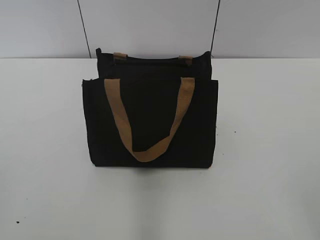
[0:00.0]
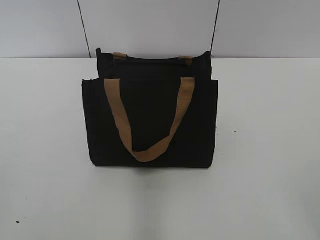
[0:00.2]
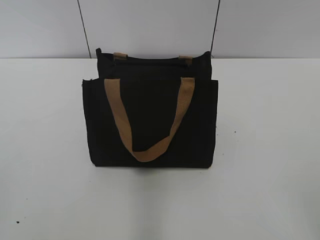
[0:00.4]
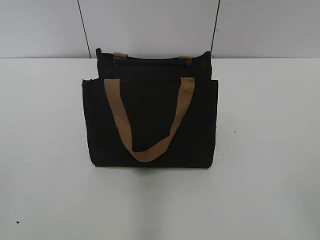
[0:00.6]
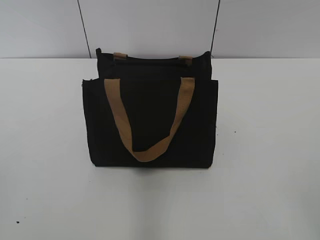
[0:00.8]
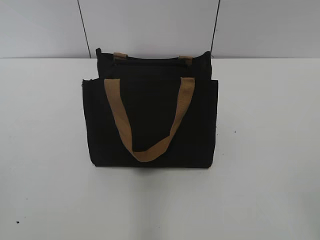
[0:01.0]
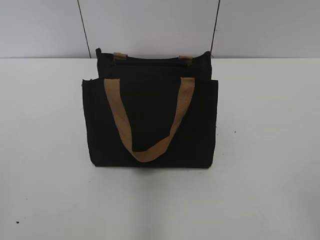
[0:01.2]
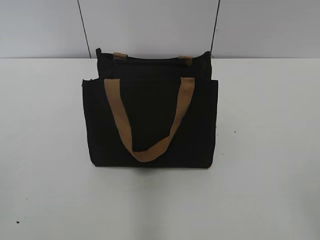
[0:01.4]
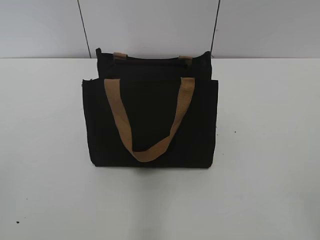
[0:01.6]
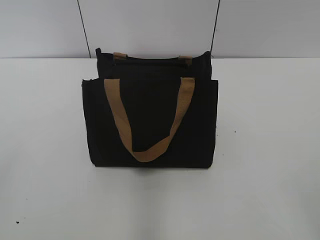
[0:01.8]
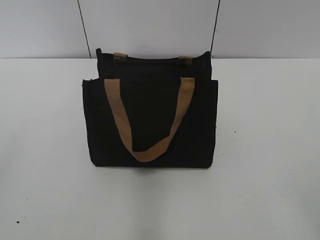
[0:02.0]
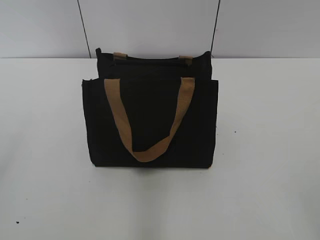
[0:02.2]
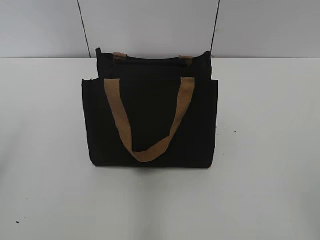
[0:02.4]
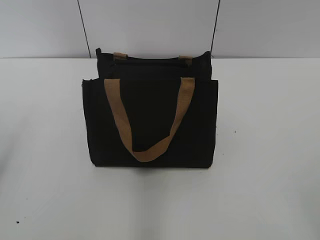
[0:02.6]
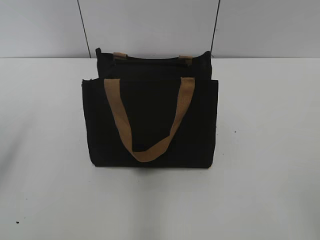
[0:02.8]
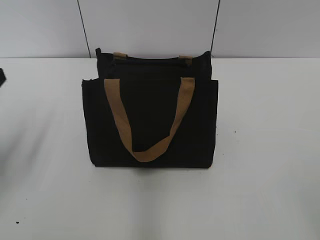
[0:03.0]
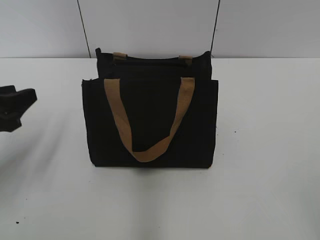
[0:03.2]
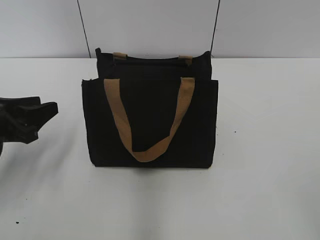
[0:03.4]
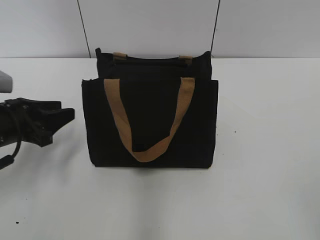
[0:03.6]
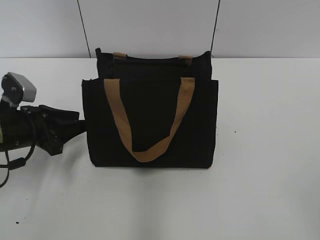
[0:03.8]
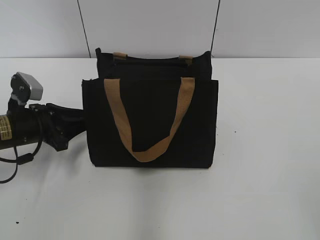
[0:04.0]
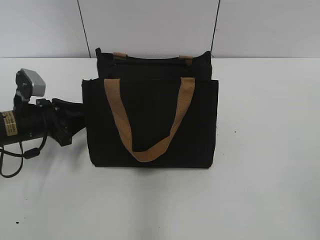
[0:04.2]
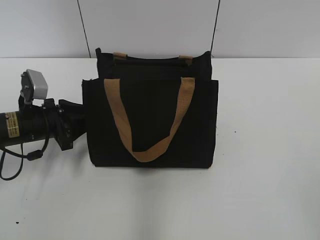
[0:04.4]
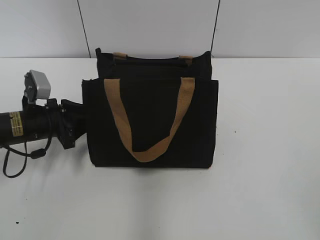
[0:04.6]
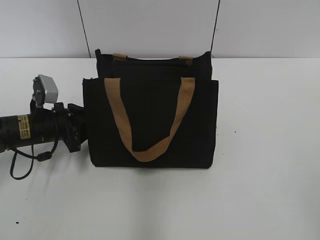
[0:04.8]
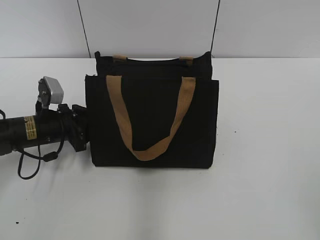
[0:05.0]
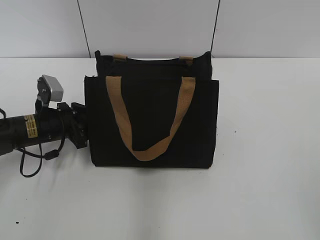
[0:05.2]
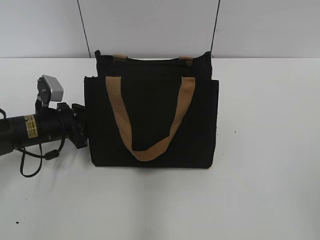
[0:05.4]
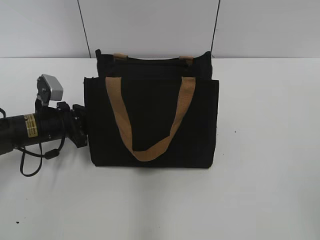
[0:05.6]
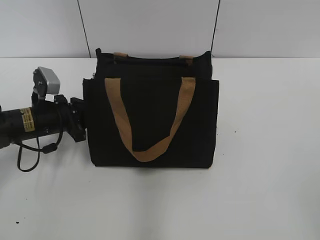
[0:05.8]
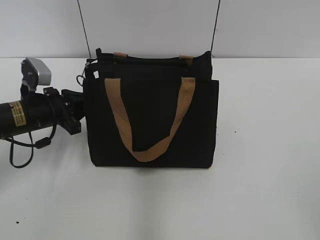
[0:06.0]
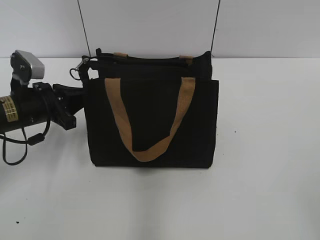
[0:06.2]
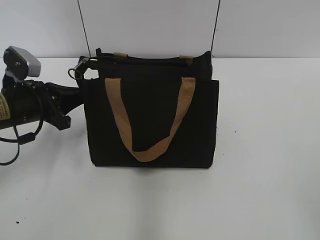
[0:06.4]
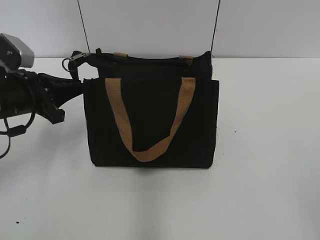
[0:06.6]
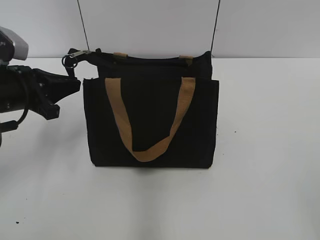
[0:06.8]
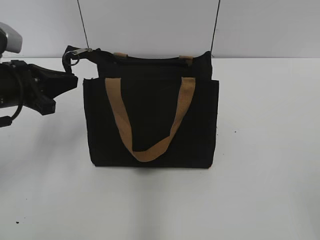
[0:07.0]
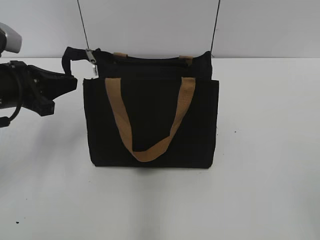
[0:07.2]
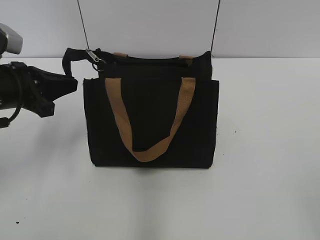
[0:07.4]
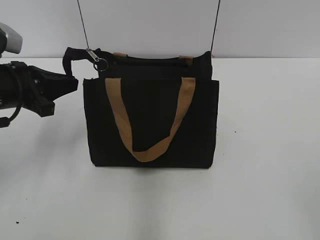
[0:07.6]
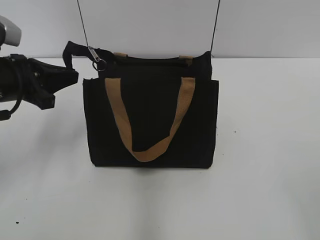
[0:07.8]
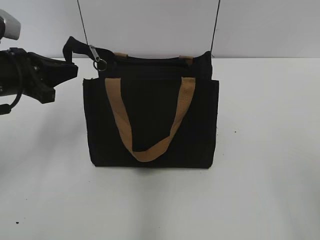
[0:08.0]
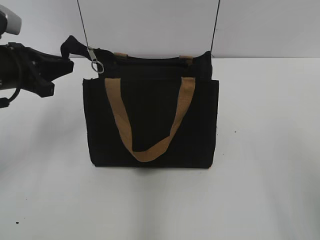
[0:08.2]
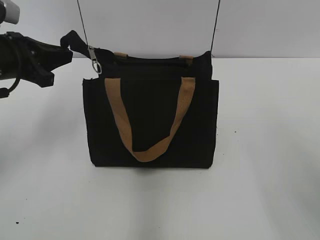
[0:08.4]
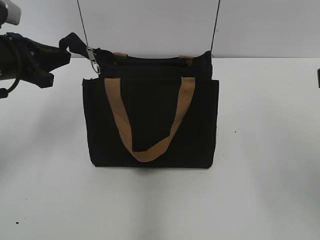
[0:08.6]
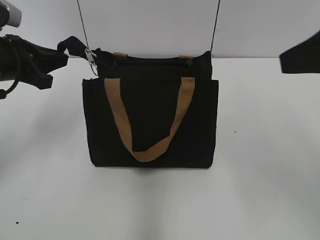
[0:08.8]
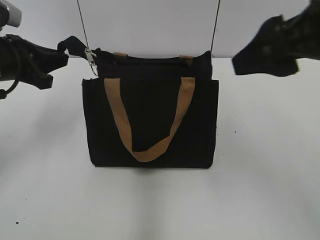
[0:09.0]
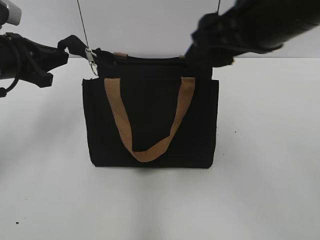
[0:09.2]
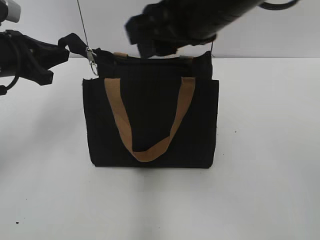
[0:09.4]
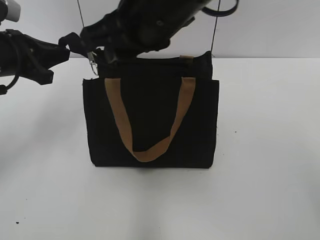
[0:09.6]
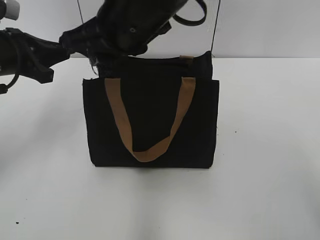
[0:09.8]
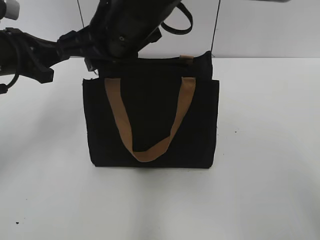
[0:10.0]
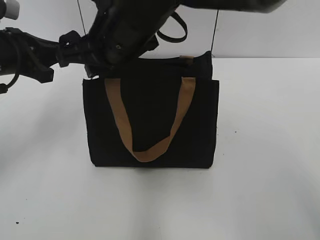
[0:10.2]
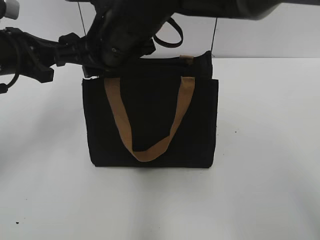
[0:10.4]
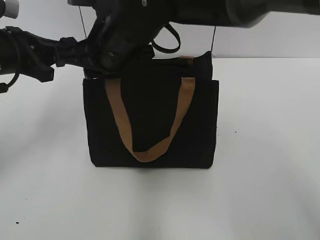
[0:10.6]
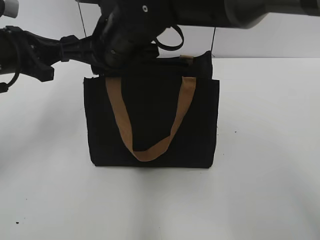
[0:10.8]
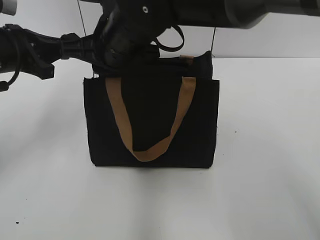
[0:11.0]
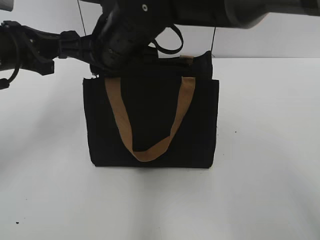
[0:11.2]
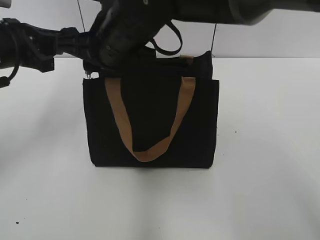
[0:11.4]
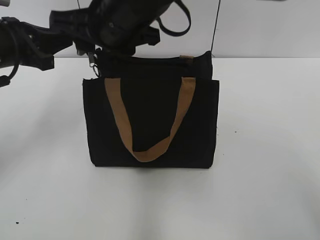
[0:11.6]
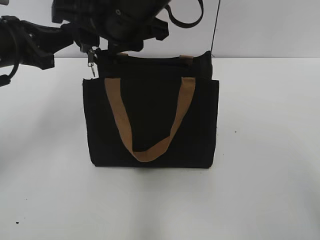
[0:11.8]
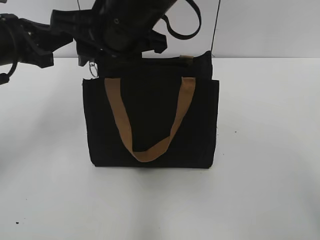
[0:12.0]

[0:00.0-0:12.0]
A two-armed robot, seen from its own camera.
0:01.6 to 0:03.0: The left gripper is displaced forward and downward by roughly 25 cm.
0:03.0 to 0:04.4: The left gripper moves downward, forward and to the right, roughly 15 cm.
0:04.4 to 0:06.0: The left gripper closes up.
0:06.0 to 0:07.6: The left gripper shifts about 10 cm upward.
0:07.6 to 0:09.0: The right gripper heads forward and to the left, covering roughly 25 cm.
0:09.0 to 0:10.4: The right gripper heads to the left and forward, covering roughly 20 cm, and closes.
0:10.4 to 0:12.0: The grippers move only a little.

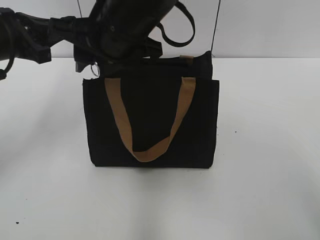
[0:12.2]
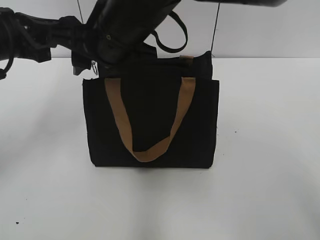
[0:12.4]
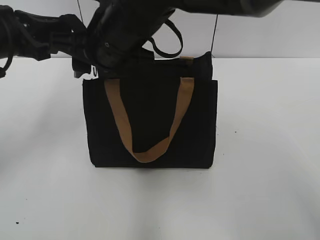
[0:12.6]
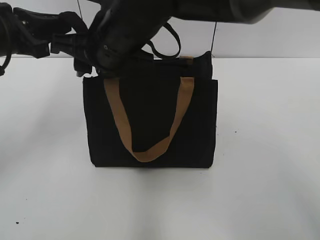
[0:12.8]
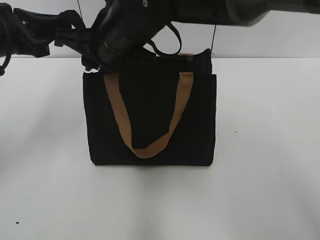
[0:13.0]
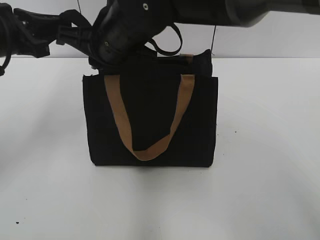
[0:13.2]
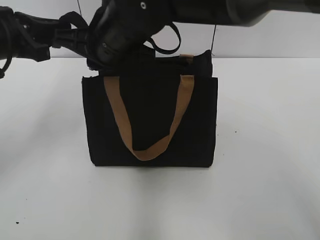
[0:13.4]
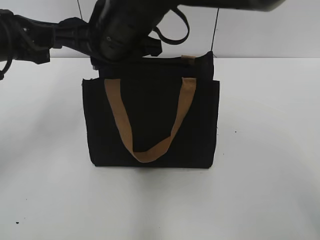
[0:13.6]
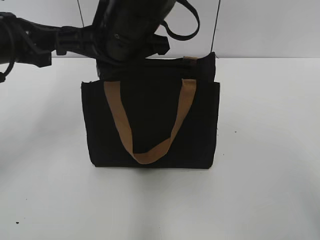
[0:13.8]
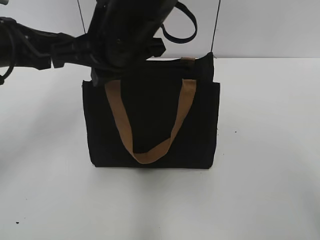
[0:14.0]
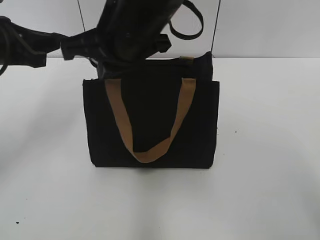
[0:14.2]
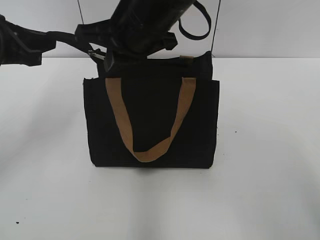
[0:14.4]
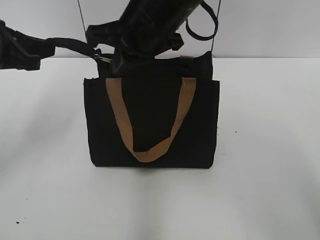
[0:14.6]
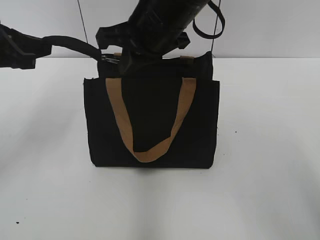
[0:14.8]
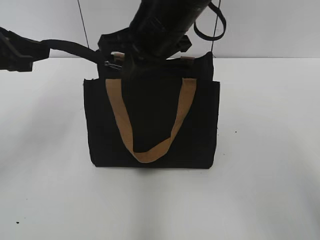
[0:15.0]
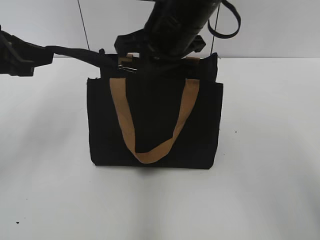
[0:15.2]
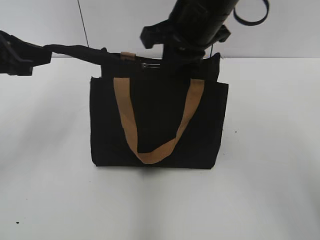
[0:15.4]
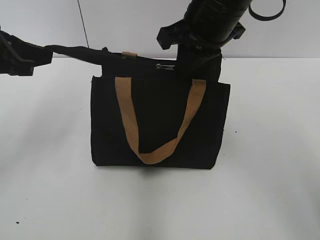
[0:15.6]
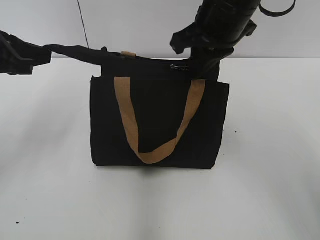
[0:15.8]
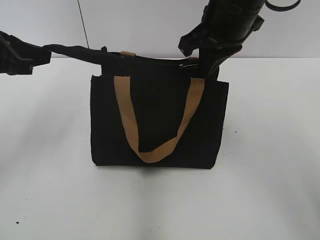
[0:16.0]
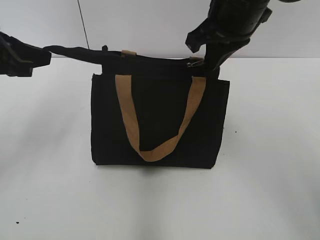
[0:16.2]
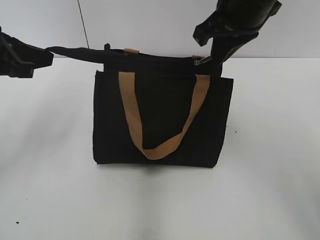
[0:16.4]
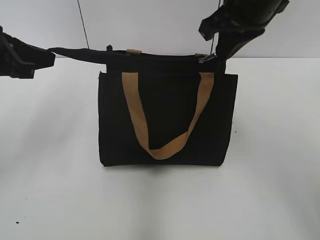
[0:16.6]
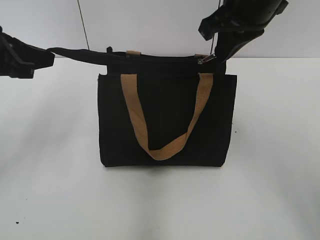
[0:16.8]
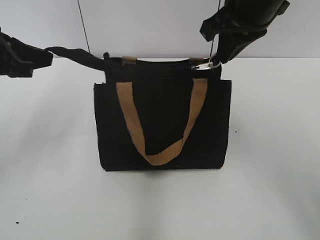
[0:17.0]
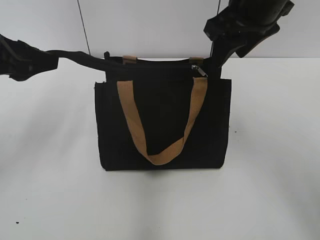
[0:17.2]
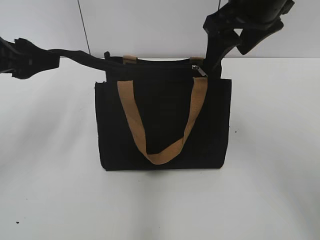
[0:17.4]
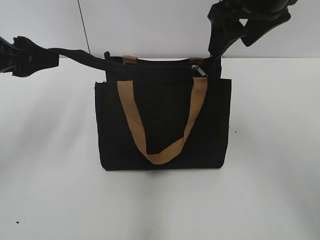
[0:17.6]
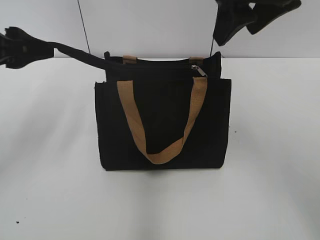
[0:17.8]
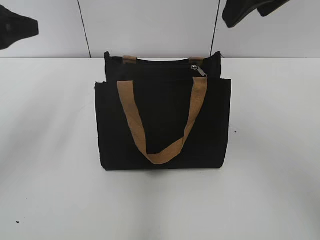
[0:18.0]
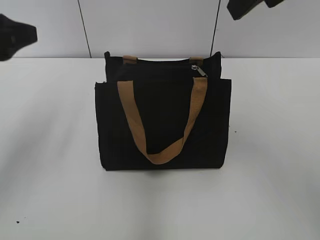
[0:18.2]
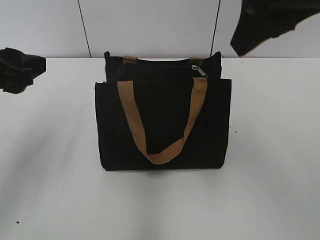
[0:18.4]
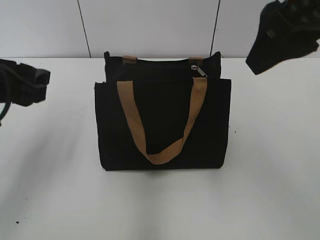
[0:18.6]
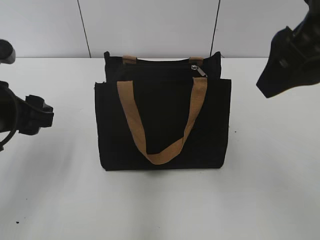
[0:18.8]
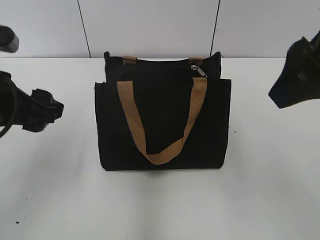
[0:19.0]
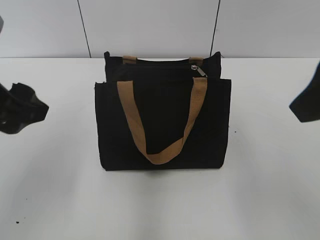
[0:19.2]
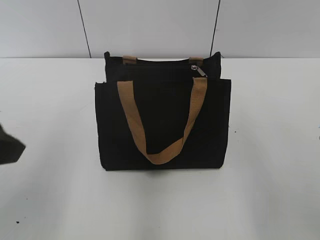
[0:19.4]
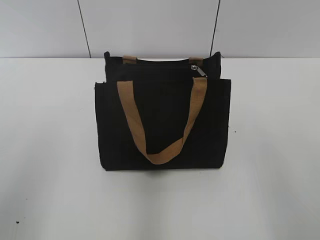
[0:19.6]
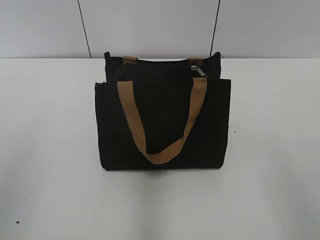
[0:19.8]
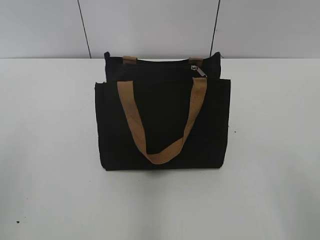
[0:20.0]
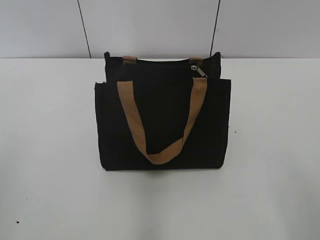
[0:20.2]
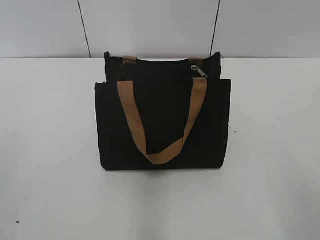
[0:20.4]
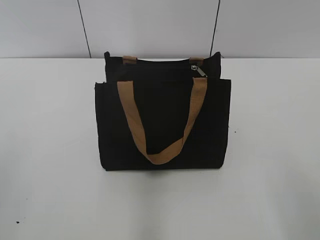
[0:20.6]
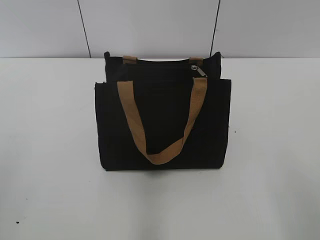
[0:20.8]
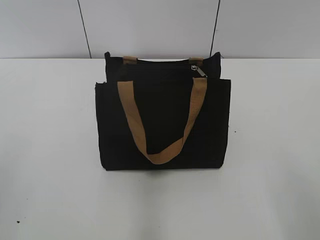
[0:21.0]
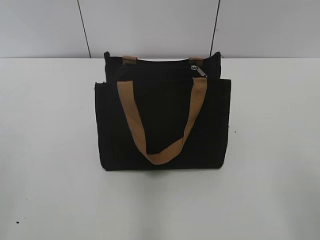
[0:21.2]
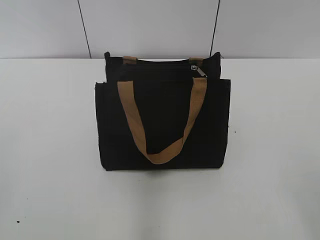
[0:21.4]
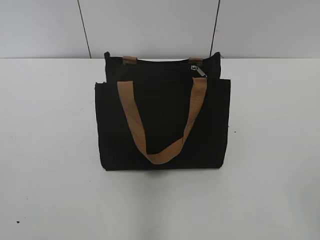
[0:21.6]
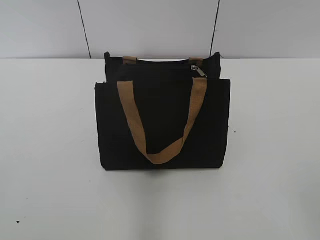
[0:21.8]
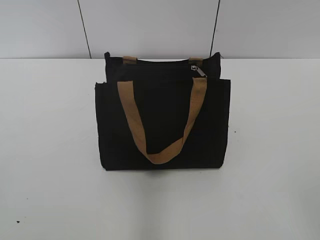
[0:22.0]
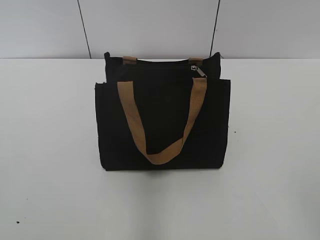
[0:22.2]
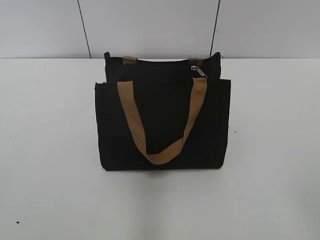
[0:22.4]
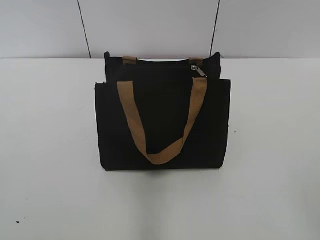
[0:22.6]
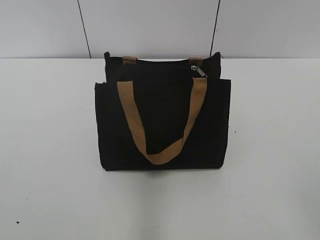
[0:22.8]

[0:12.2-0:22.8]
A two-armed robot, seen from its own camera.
Step, 0:12.2 to 0:17.0: Zip up the bag with your right hand.
Step, 0:17.2 to 0:17.8: Grab the zipper with your left hand.
0:12.2 to 0:13.8: The right gripper closes its fingers.
0:13.8 to 0:15.2: The right gripper travels to the right by approximately 10 cm.
0:15.2 to 0:16.8: The right gripper goes about 10 cm to the right.
0:16.8 to 0:18.2: The right gripper moves upward and backward, roughly 10 cm, and opens up. Meanwhile the left gripper changes place by approximately 5 cm, and opens.
0:18.2 to 0:19.8: The left gripper goes some 15 cm backward. The right gripper travels backward, to the right and downward by some 25 cm.
